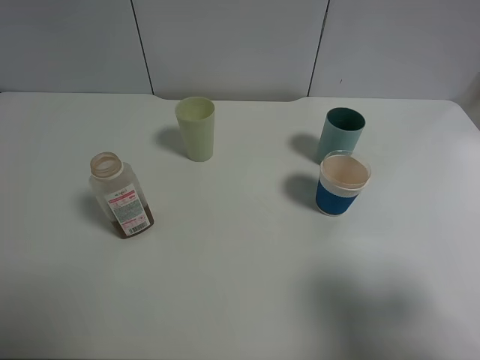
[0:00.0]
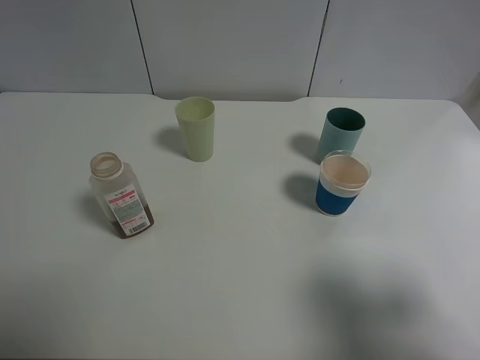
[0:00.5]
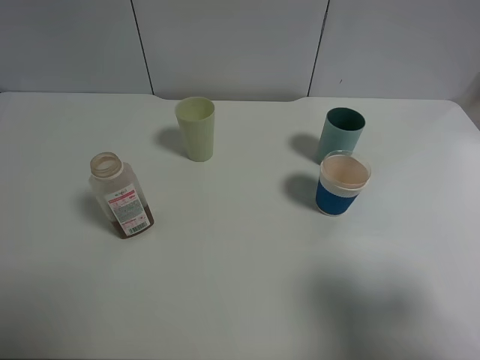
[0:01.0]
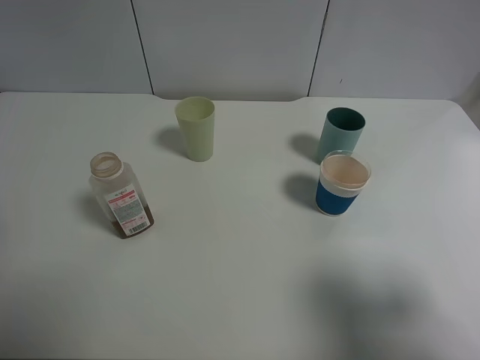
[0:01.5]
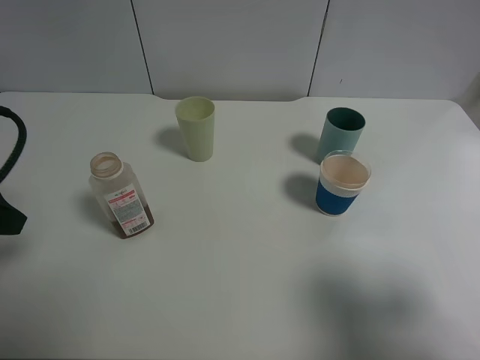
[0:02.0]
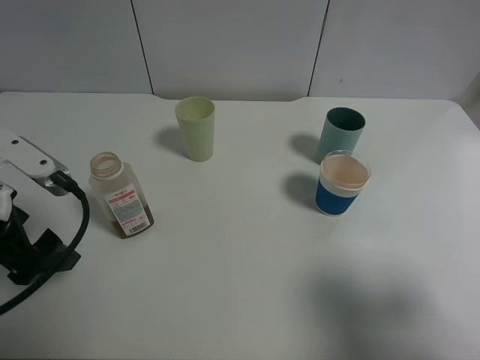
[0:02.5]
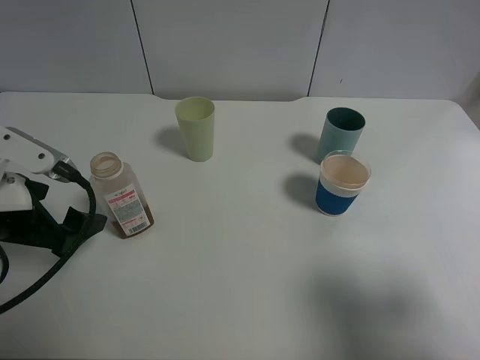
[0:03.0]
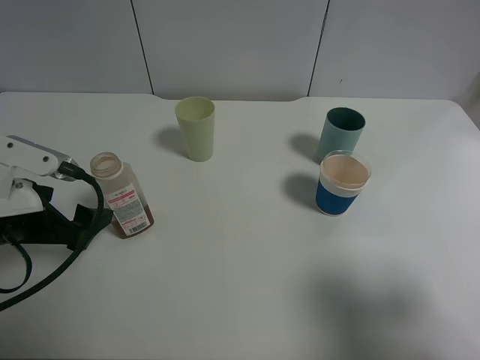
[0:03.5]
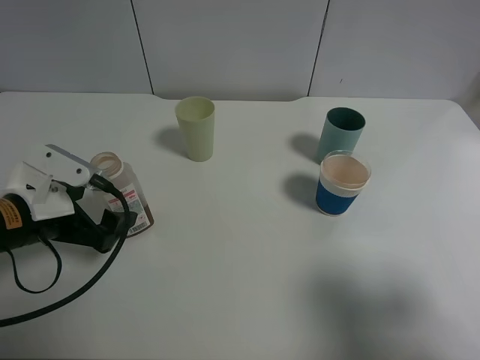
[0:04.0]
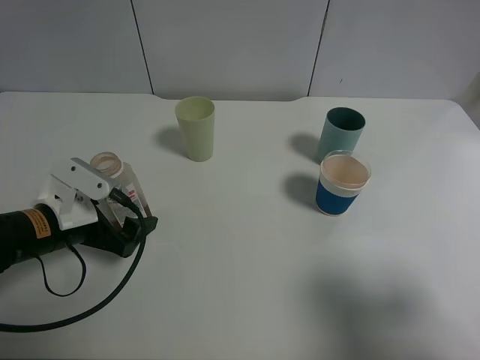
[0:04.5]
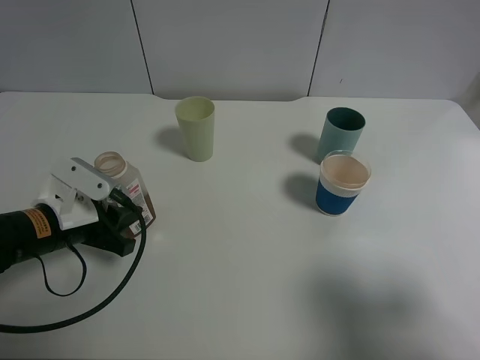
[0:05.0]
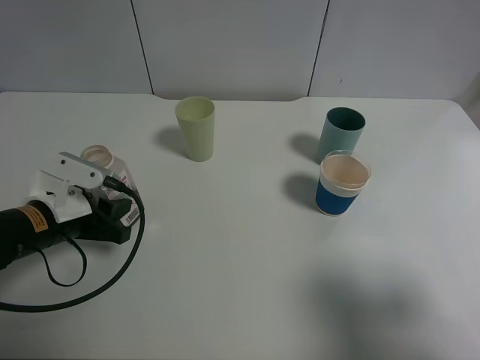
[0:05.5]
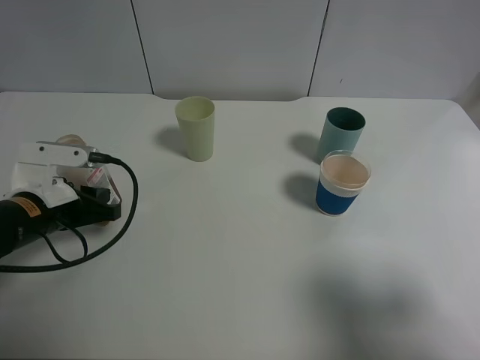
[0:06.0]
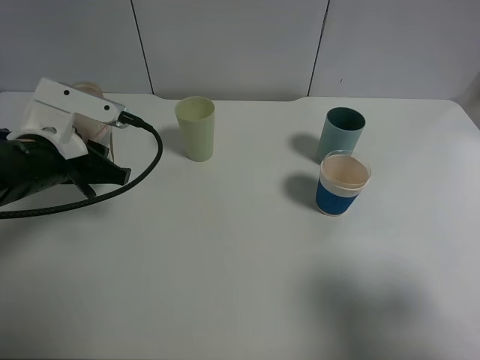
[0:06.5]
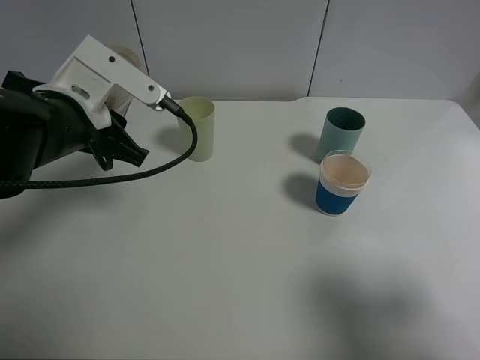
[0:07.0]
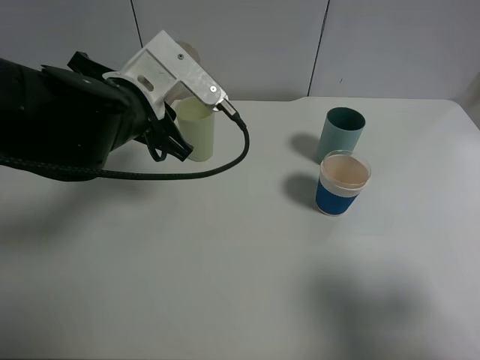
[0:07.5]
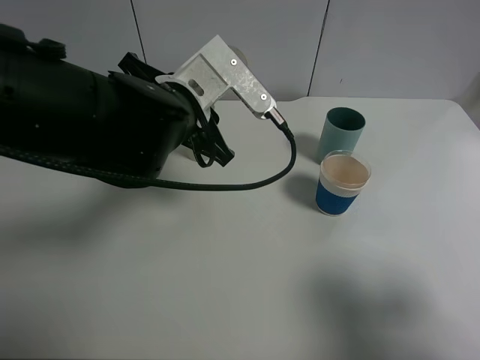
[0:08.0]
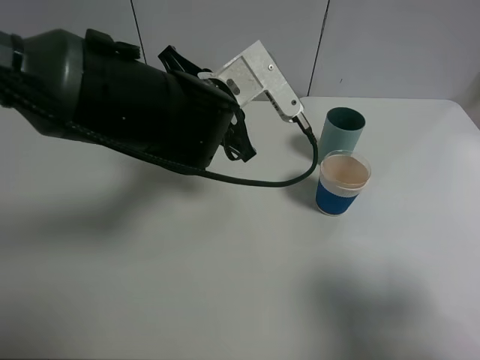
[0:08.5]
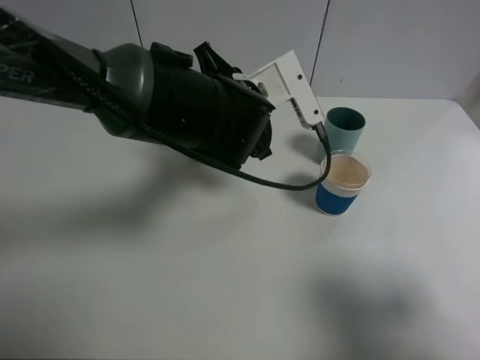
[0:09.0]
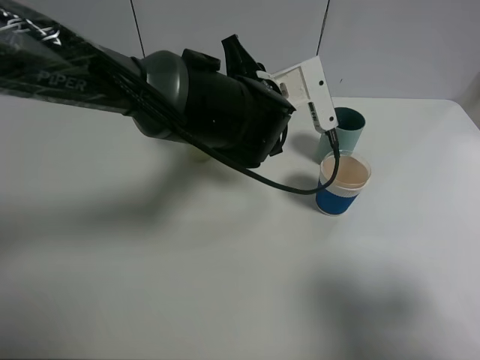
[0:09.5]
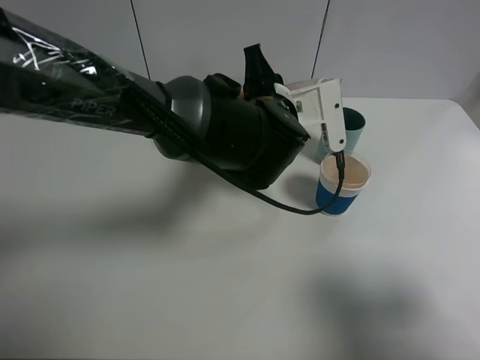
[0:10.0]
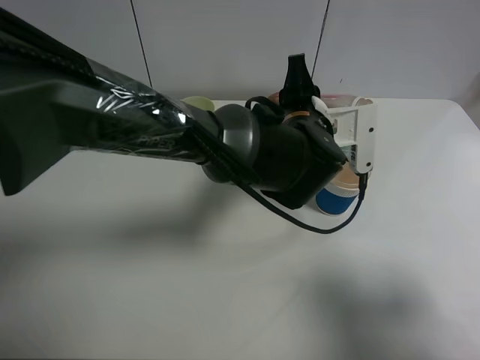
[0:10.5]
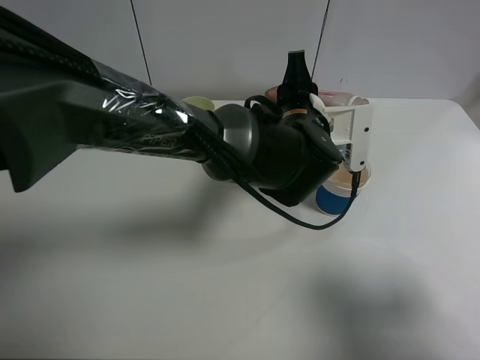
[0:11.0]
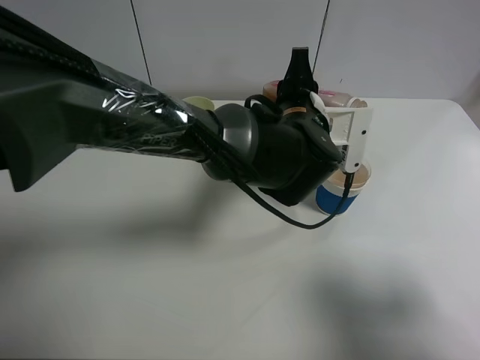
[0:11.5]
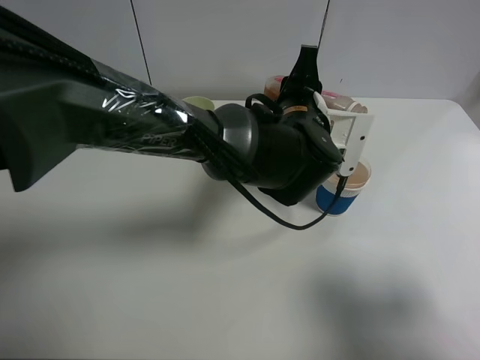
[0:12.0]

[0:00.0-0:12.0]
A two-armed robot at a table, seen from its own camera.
Task of the whole recording: use a clamp to hold the bottle of the drink, pour the beverage into a random cup, then clamp the cup containing the drink and pour the drink into another random cup.
Step, 0:00.0 to 0:06.0: Pick up the drink bottle with left gripper.
0:00.0 to 0:02.0: The left gripper moves forward, about 15 cm.
0:02.0 to 0:04.0: The left gripper is displaced downward and to the right by about 15 cm.
0:04.0 to 0:06.0: The left gripper closes its fingers.
0:06.0 to 0:08.0: The left gripper travels to the right and upward by about 20 cm.
0:08.0 to 0:10.0: The left gripper goes roughly 10 cm to the right.

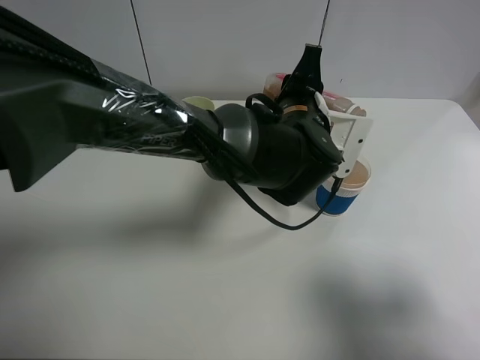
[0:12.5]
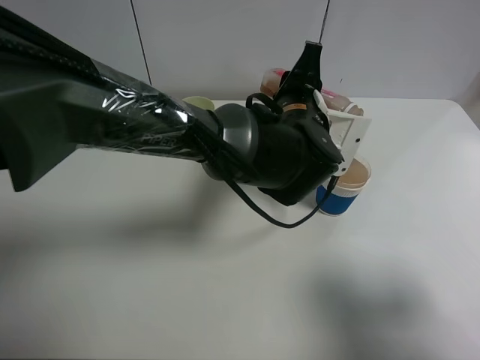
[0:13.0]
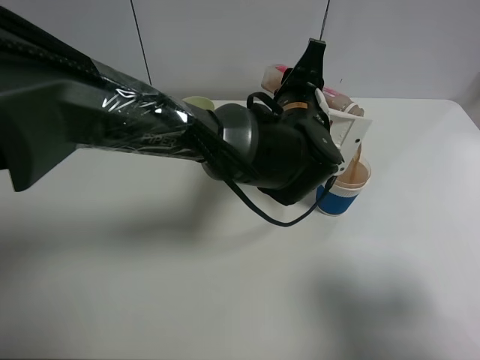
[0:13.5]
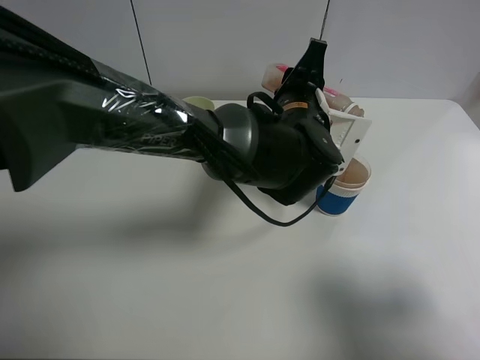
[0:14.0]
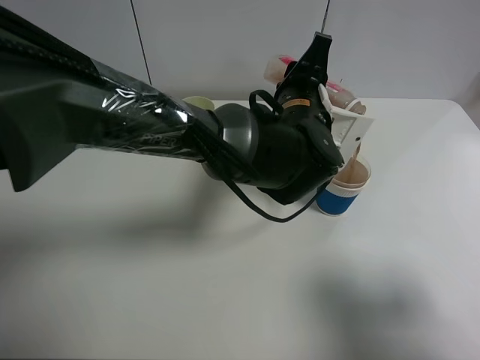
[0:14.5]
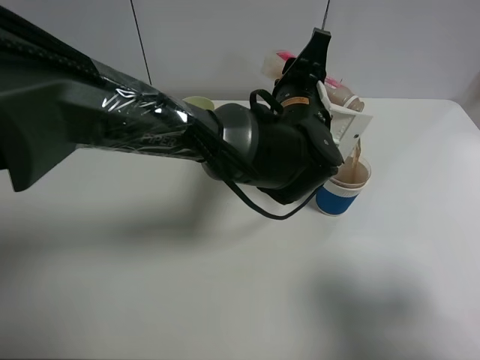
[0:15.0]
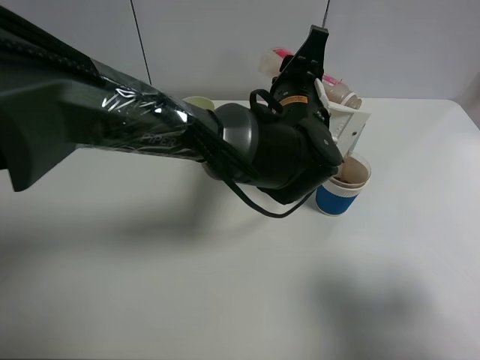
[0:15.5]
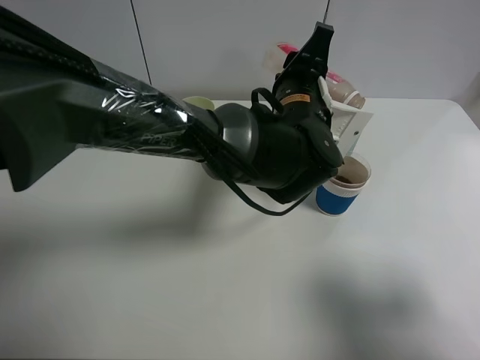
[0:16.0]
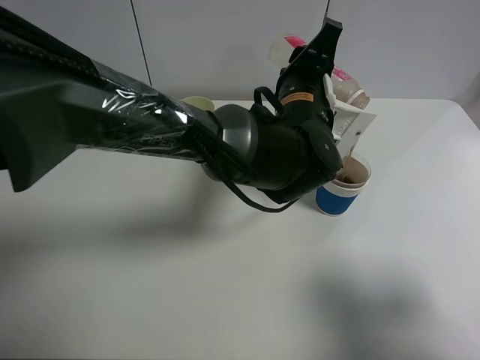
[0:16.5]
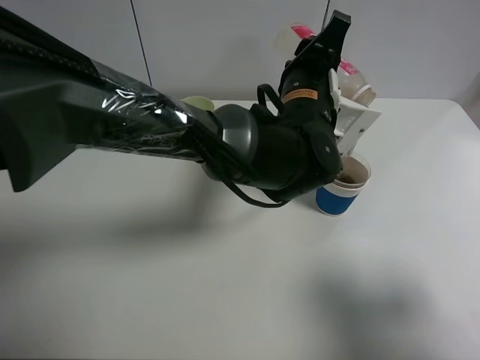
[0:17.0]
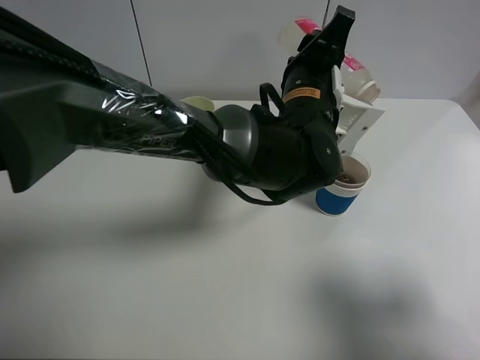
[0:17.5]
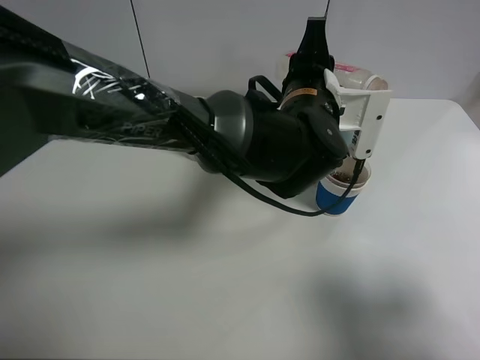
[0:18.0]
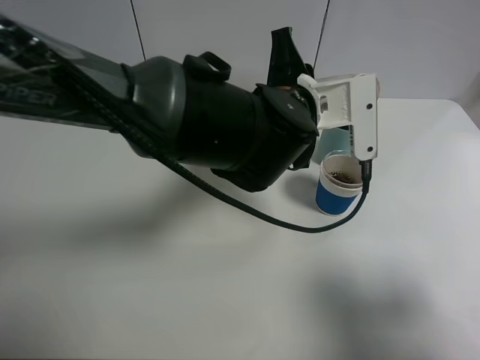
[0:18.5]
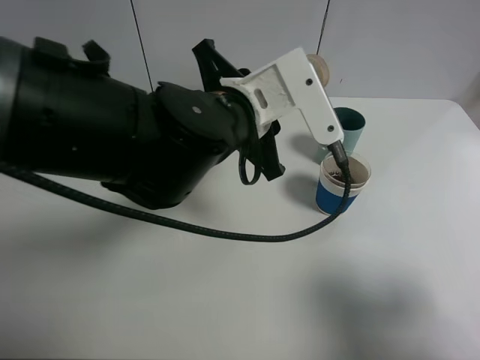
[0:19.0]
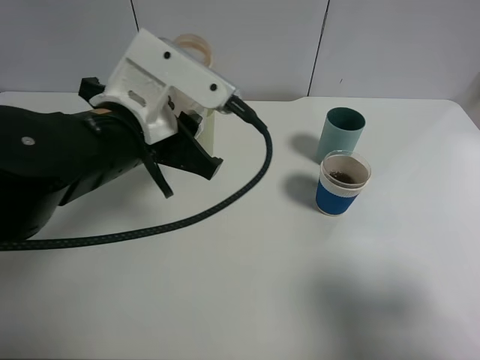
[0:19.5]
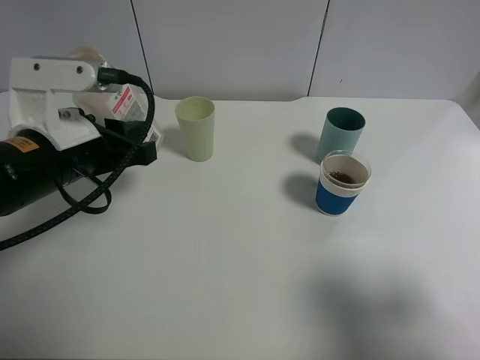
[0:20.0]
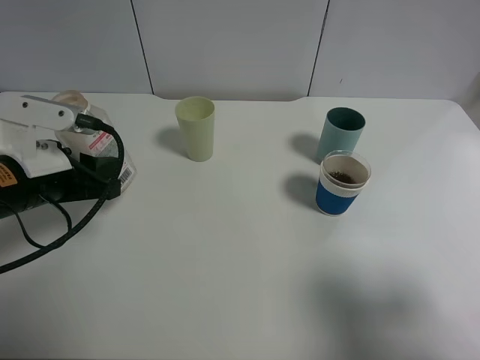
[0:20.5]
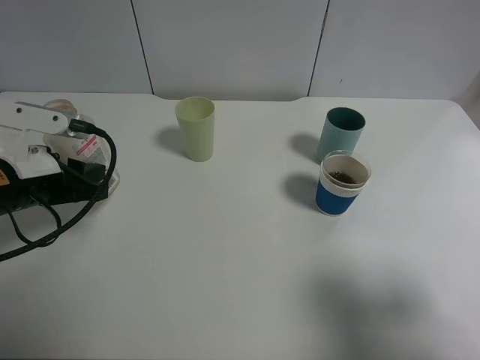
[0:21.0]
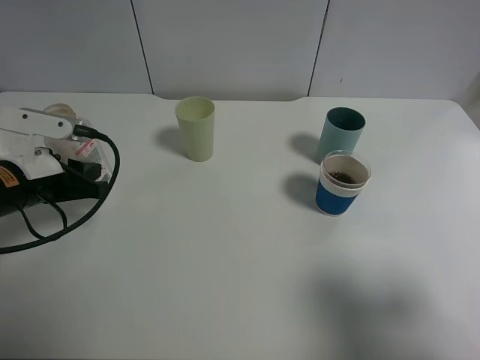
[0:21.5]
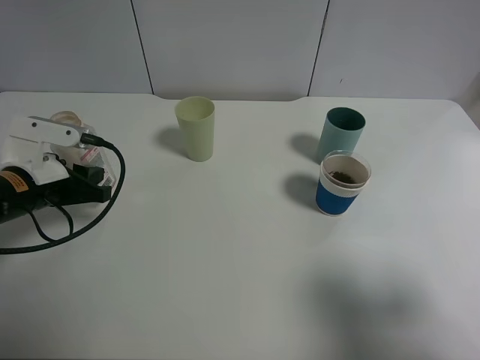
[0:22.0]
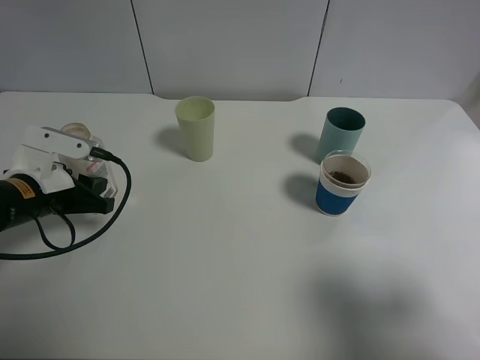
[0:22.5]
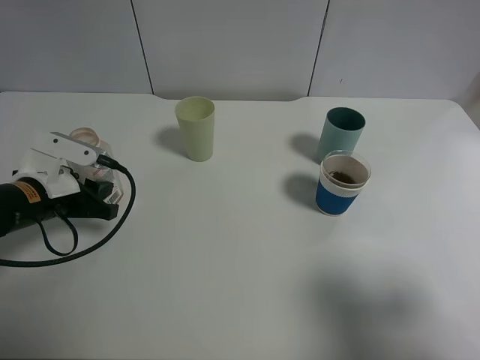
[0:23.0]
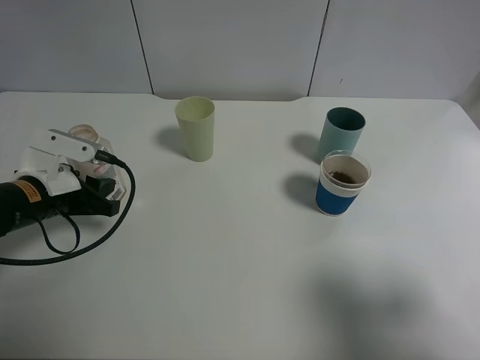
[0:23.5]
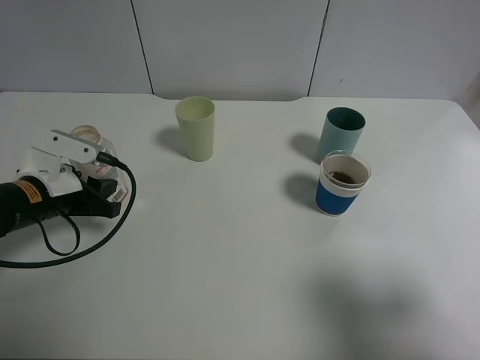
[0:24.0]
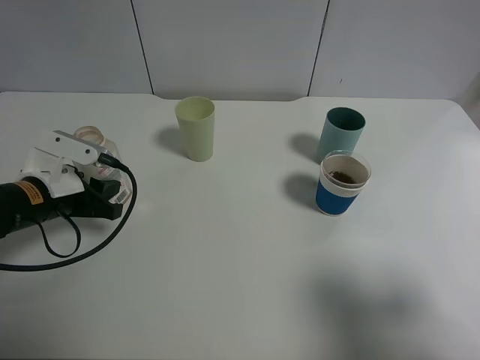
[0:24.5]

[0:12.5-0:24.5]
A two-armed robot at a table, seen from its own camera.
Task of the whole recording: use a clamp to hold the bottle of the drink, pour the beverage into a random cup, then clamp the cup containing the drink and pour the drink into another random cup.
Step, 0:12.5 to 0:18.0: Pour the drink into the paper cup with left gripper.
0:12.5 to 0:16.5: The grippers make only small movements.
0:18.5 to 0:20.5: The left gripper is displaced to the left by approximately 25 cm.
0:20.5 to 0:22.5: The left gripper goes approximately 5 cm downward.
0:22.5 to 0:24.5: The grippers move only a little.

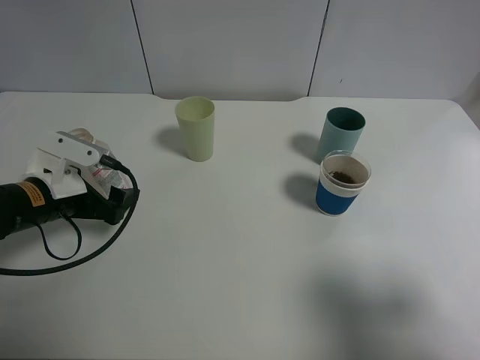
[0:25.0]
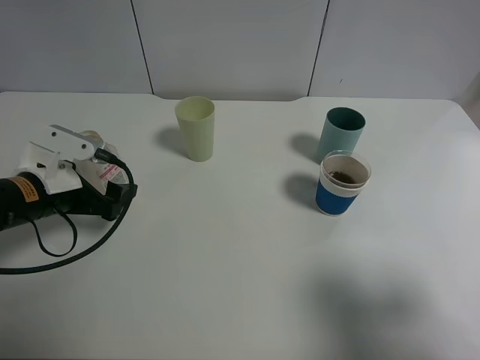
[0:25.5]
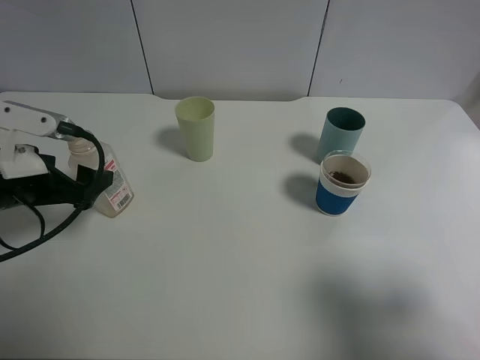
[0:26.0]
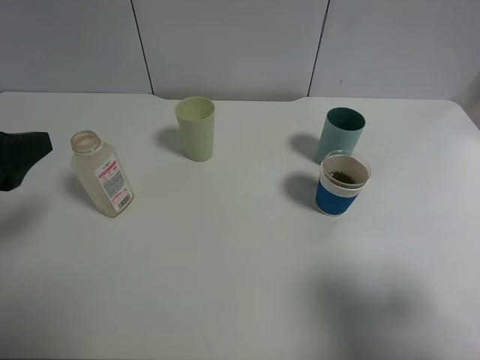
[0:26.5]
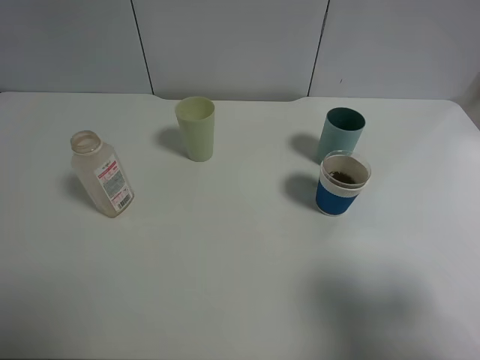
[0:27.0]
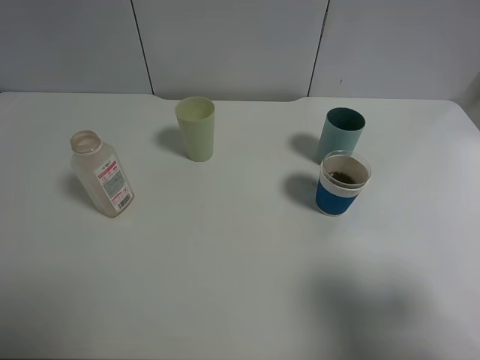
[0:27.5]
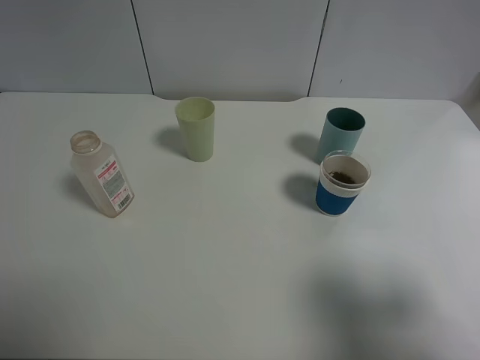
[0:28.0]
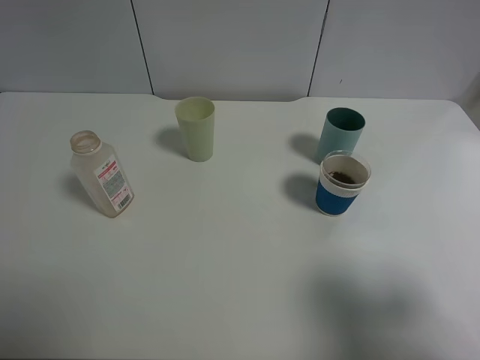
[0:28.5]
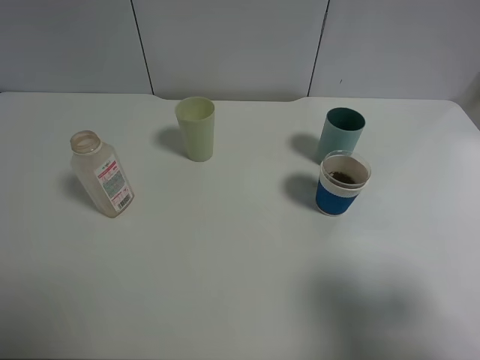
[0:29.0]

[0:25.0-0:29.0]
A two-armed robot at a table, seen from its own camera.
Task of the whole recording: use a clamp to hold the bottle of the drink, pour the beverage into a random cup, then clamp the cup containing the drink and pour the drink into another random cup.
0:25.0 to 0:27.0: The left gripper travels upward and backward by roughly 25 cm.
